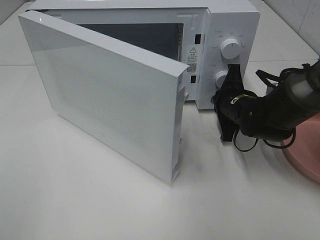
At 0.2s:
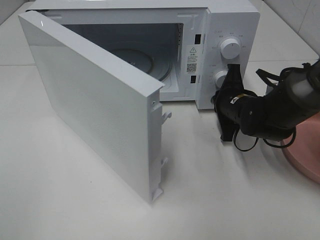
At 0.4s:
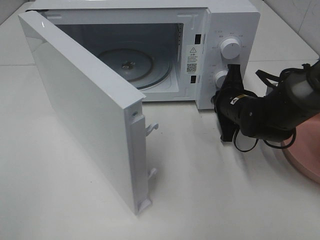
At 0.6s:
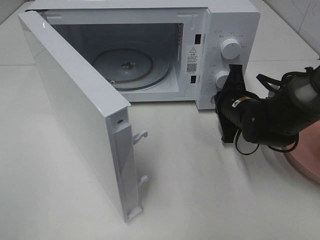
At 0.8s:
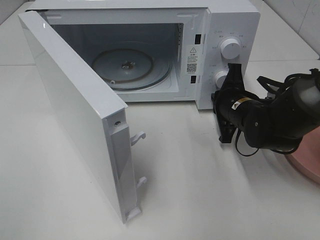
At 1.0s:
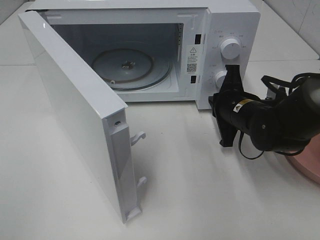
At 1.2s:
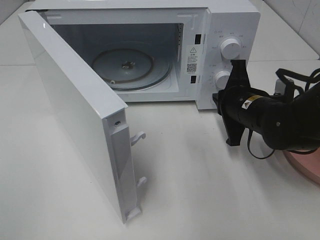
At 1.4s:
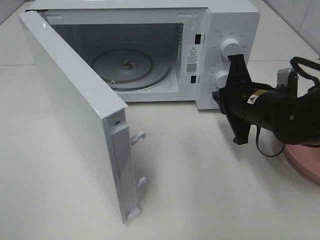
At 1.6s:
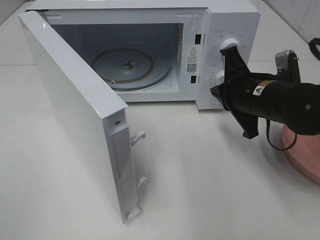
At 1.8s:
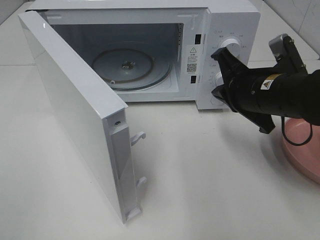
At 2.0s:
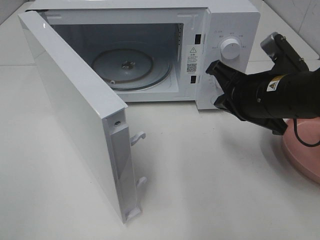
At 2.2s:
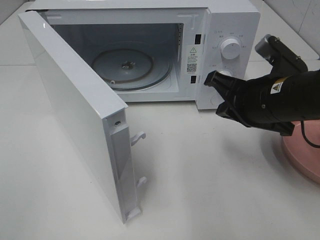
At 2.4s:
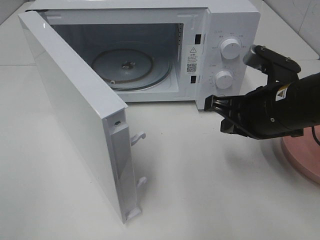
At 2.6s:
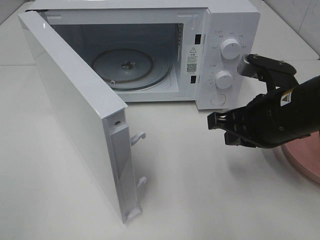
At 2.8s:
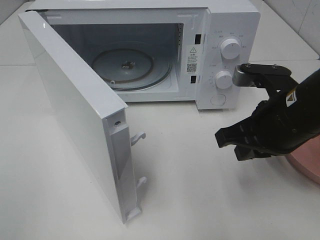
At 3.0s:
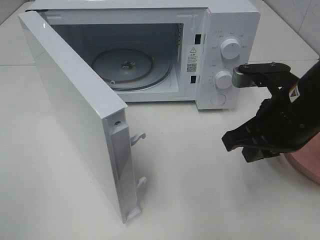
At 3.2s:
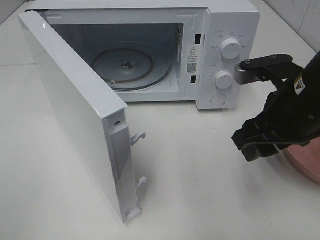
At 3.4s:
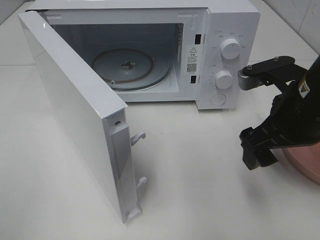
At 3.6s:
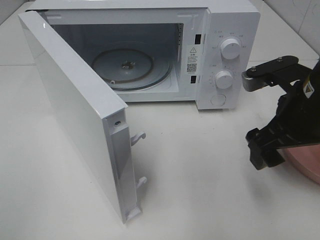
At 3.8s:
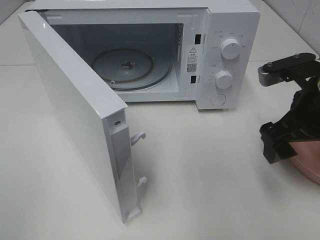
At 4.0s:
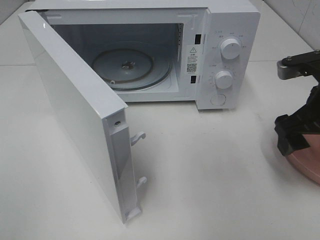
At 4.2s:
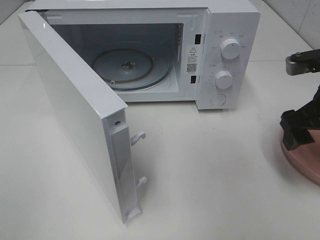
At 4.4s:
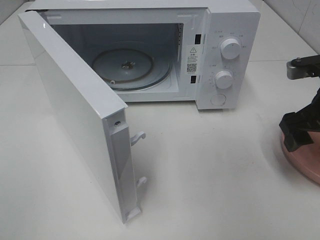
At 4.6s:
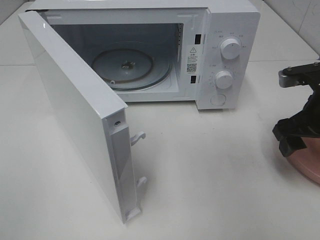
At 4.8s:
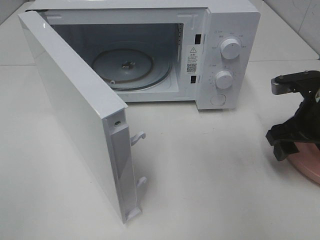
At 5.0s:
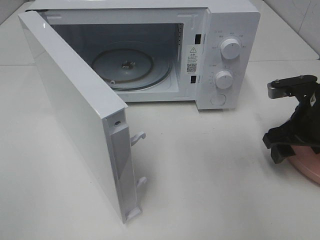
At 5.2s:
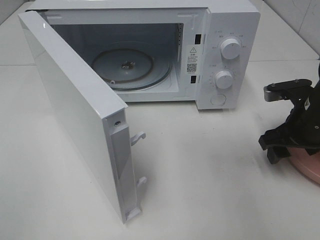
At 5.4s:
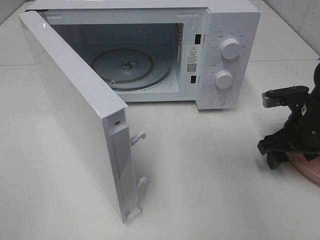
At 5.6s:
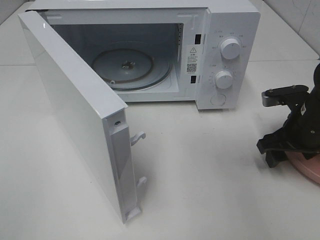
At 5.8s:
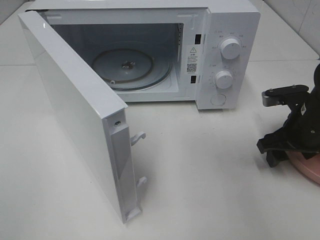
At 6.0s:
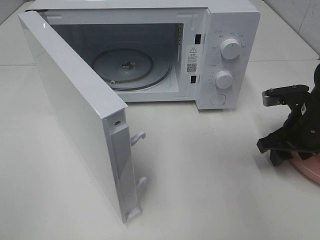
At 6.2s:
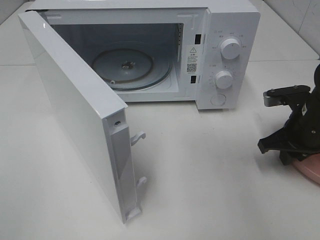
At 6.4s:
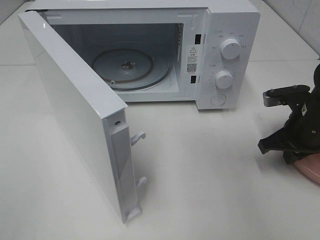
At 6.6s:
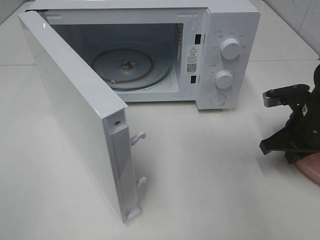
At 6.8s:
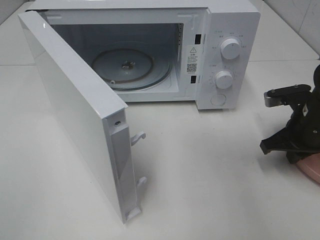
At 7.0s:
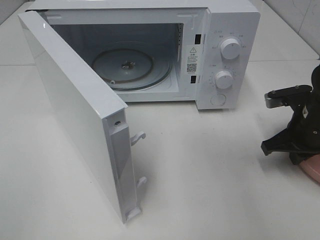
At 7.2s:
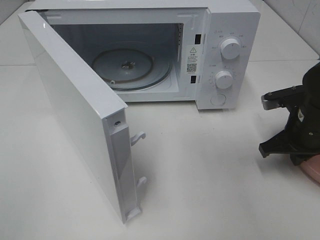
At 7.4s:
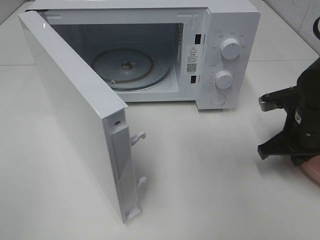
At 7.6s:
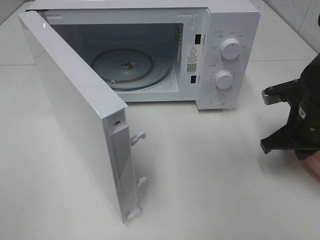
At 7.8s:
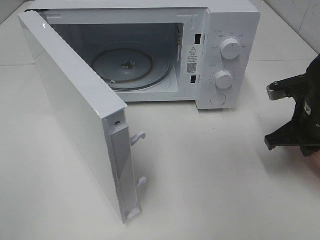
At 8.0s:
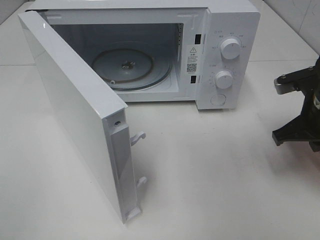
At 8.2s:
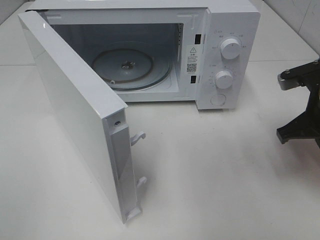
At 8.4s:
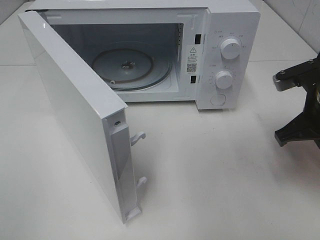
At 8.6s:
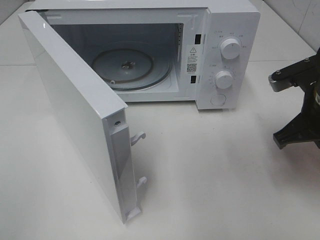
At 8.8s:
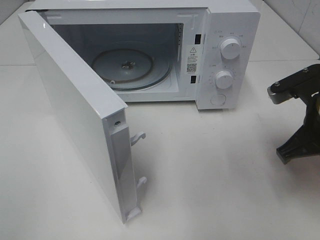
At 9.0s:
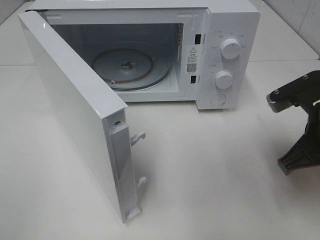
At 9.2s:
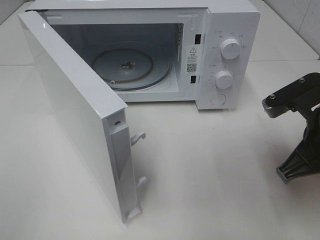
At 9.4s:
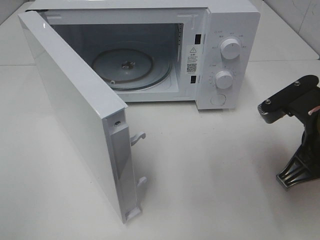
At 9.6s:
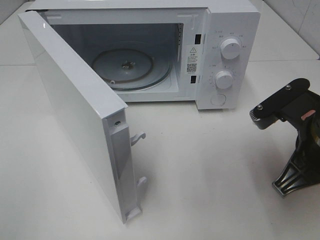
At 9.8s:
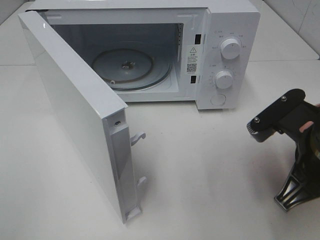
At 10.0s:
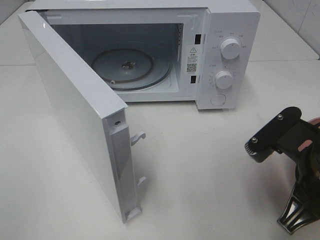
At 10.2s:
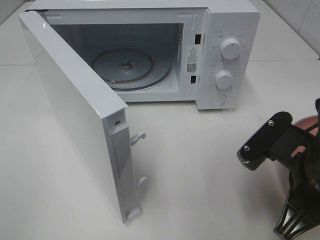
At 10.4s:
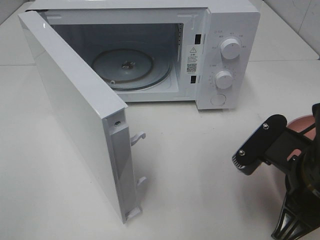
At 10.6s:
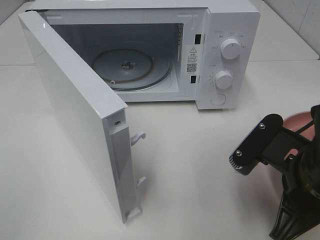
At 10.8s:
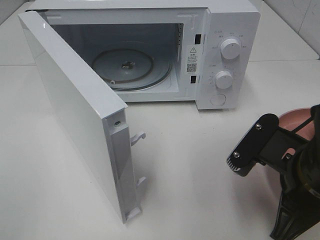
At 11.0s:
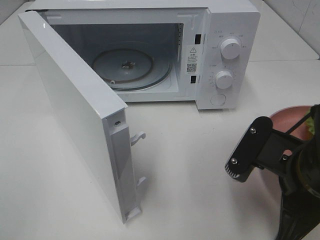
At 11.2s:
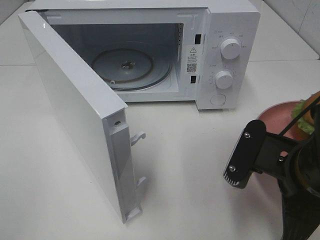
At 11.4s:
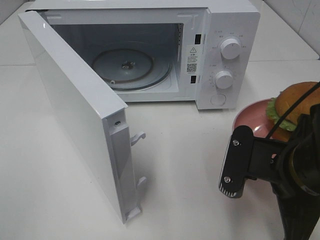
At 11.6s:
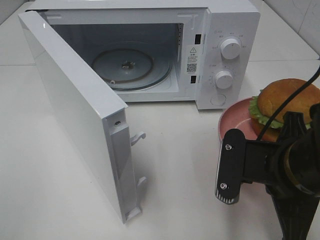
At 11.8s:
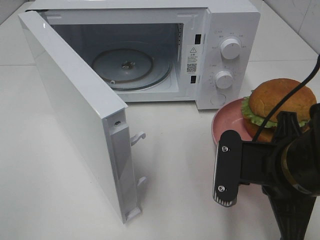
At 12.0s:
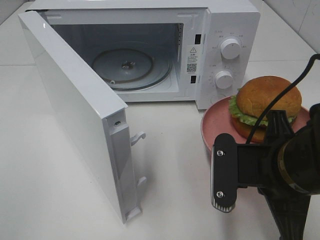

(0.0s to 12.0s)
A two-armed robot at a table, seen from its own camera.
Task of the whole recording: Heat the burger.
Step, 1.0s - 6.4s: Right hand: grab the plate with the hamburger.
0.0s - 1.6s: The right gripper goes approximately 10 cm upward and backward.
1.6s - 3.0s: The right gripper travels backward by about 5 cm.
3.0s - 4.4s: The right gripper goes roughly 10 cm to the right, and opens up.
4.4s - 6.0s: The right gripper heads downward, covering approximately 10 cm.
6.0s - 7.6s: The right gripper closes its fingers.
7.6s - 9.0s: The right gripper is displaced backward and upward by approximately 10 cm.
9.0s - 10.4s: The right gripper shifts roughly 10 cm backward and to the left.

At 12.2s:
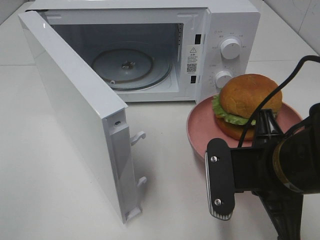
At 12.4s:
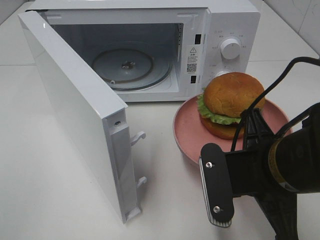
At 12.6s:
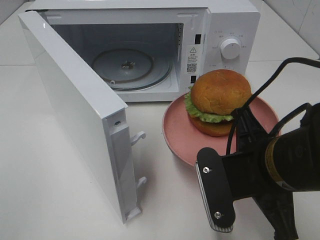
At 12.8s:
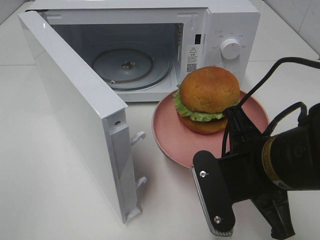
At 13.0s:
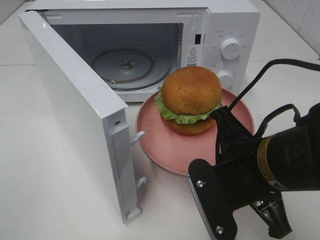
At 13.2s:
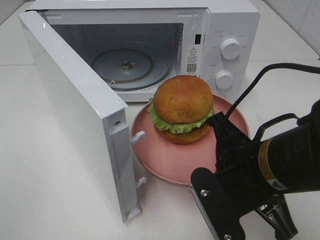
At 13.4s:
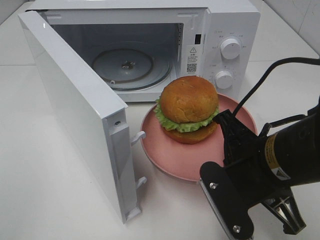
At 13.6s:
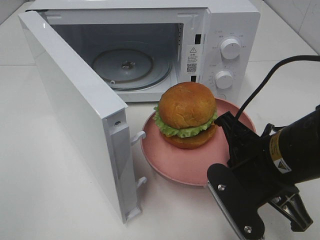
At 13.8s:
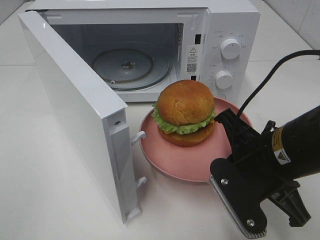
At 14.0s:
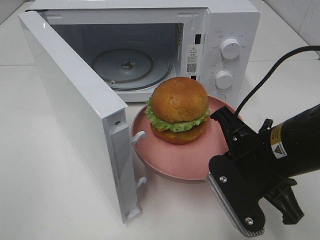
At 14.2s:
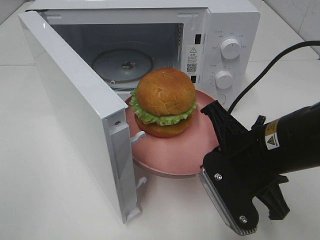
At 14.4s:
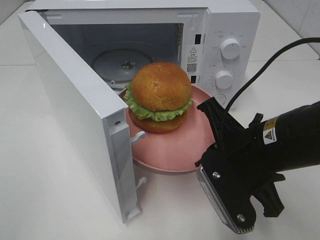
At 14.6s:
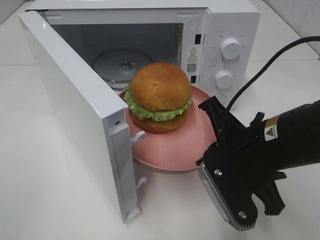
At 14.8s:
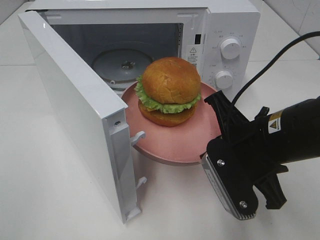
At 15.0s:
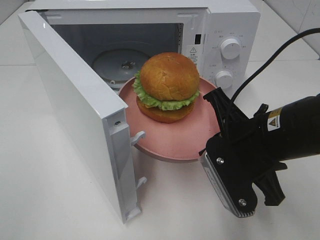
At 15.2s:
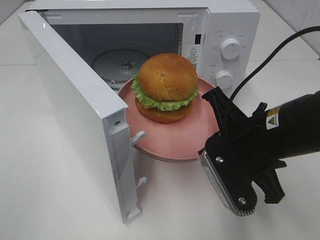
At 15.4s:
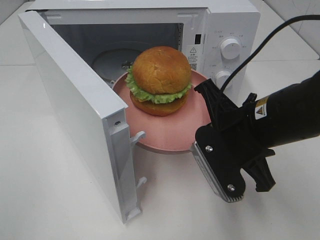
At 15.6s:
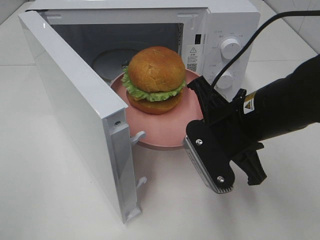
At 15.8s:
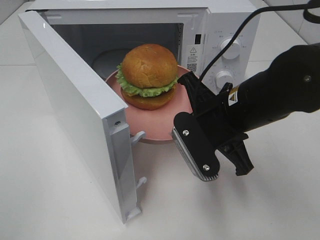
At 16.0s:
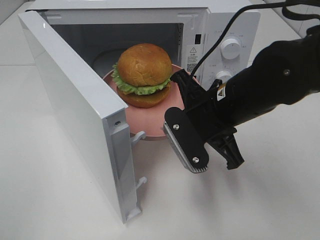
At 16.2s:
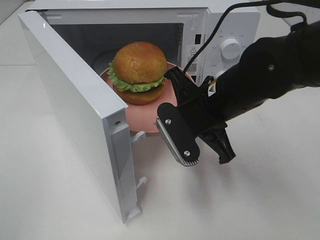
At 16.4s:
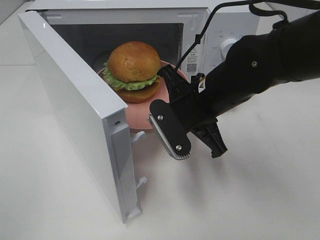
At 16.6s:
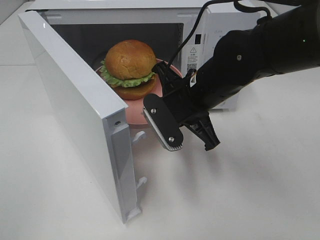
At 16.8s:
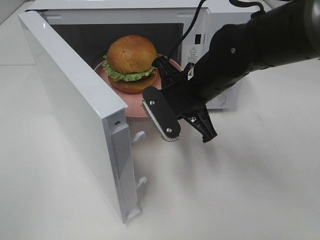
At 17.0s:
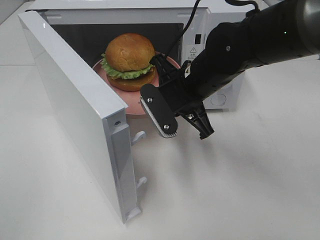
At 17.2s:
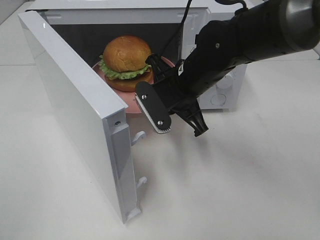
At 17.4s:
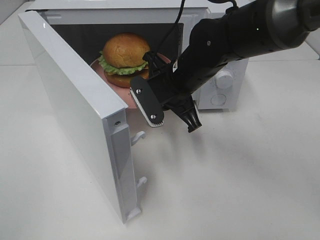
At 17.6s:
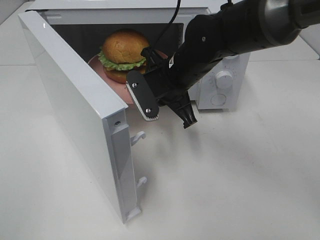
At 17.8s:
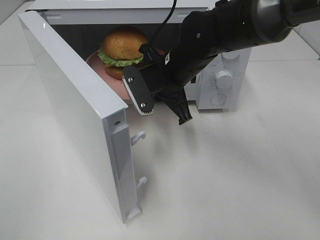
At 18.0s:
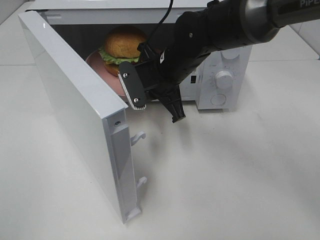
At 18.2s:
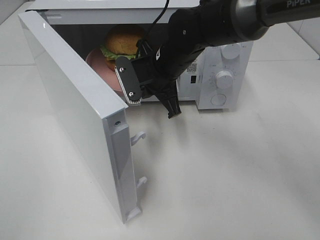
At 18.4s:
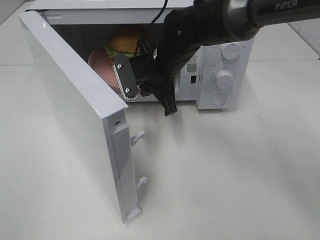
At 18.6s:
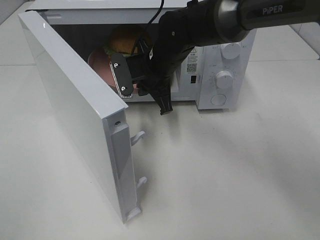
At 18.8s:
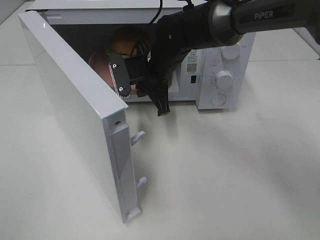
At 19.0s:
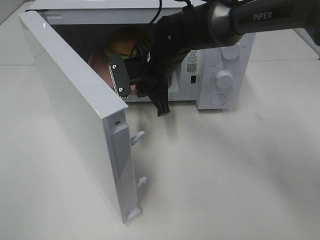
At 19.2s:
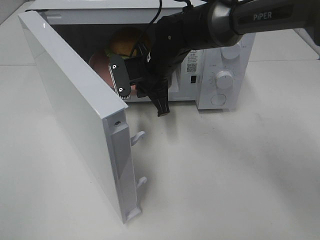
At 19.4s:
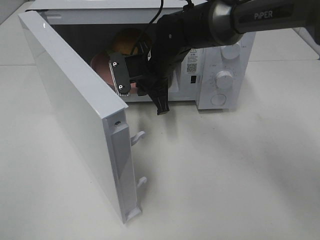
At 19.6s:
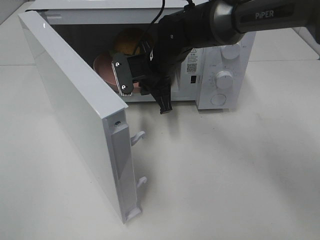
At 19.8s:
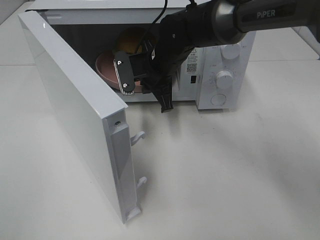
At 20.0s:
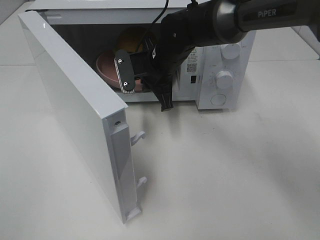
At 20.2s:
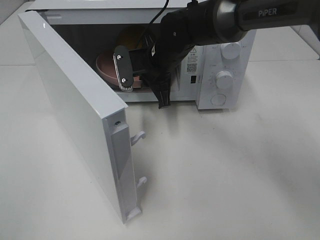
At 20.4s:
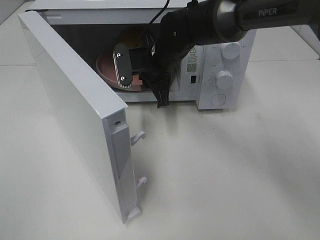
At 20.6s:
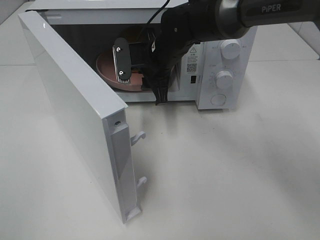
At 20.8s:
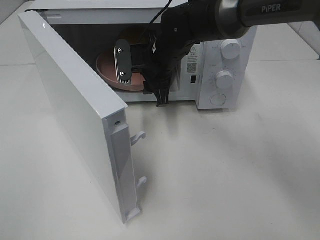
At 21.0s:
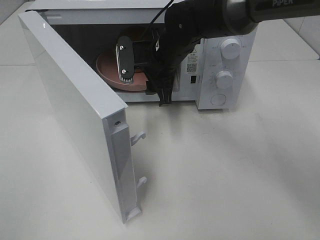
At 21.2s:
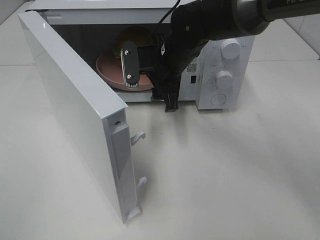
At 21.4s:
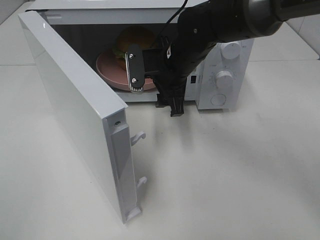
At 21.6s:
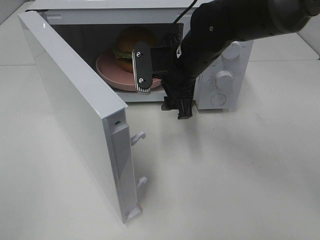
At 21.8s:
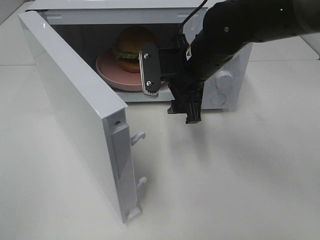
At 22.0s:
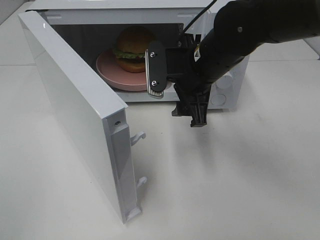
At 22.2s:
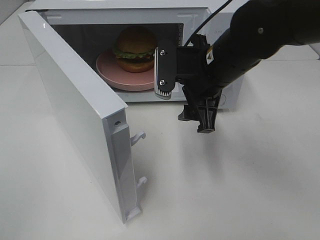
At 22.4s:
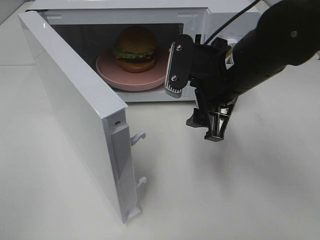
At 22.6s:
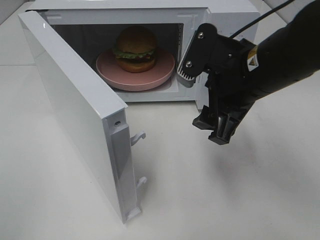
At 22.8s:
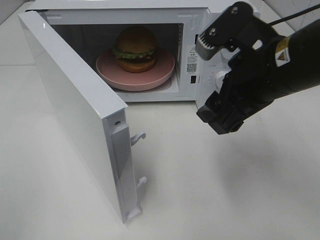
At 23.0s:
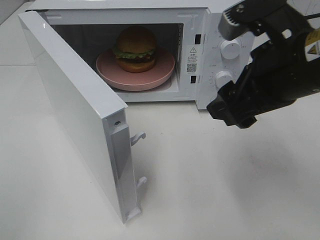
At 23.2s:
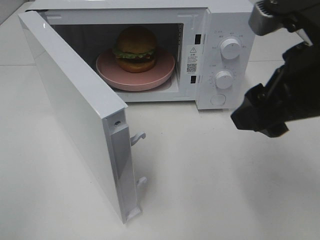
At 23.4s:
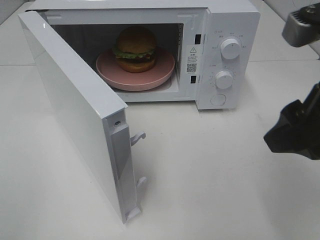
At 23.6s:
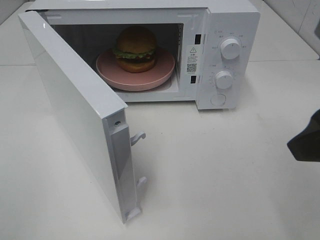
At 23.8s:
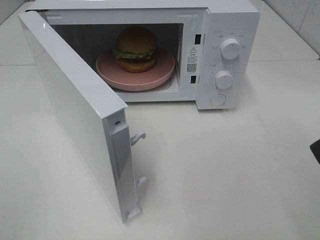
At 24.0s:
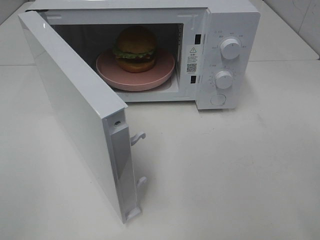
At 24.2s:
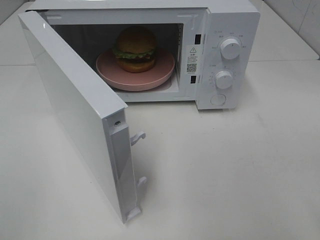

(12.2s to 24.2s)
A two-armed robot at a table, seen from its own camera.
Task of the whole recording: Heat the burger.
Step, 12.2s - 20.2s: Right hand: place the plate in the microwave.
13.8s - 15.2s: The grippers make only small movements.
15.2s - 16.6s: The right gripper heads forward and to the left, covering roughly 10 cm.
16.6s - 18.2s: The right gripper heads forward, covering about 10 cm.
18.2s - 19.8s: The grippers move only a little.
19.8s - 21.2s: The right gripper opens.
21.2s - 22.6s: The right gripper is displaced backward, to the right and upward by about 15 cm.
22.6s - 24.2s: The right gripper travels backward, to the right and upward by roughly 25 cm.
